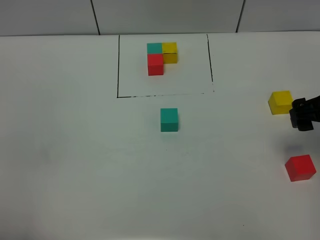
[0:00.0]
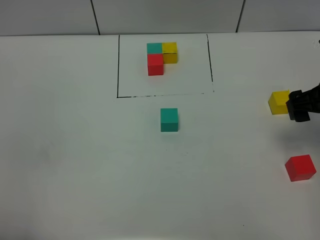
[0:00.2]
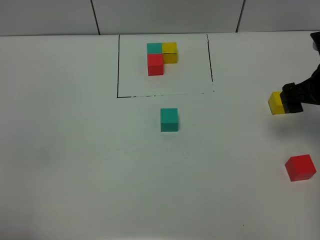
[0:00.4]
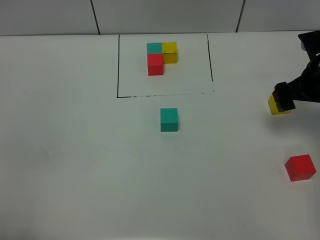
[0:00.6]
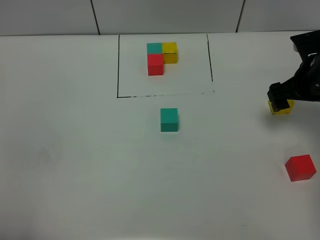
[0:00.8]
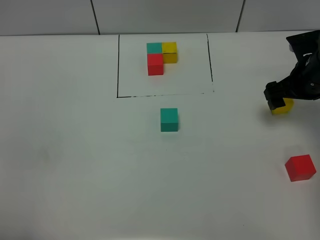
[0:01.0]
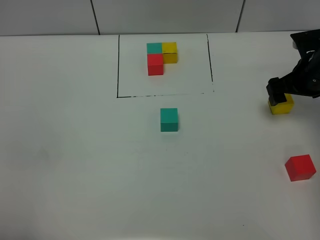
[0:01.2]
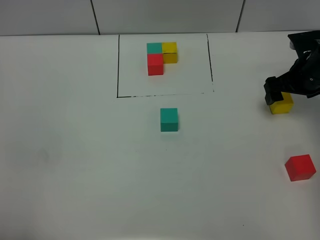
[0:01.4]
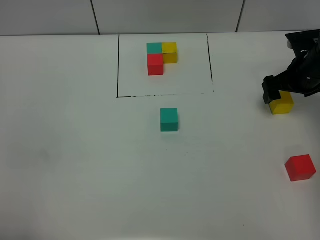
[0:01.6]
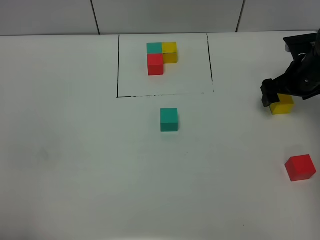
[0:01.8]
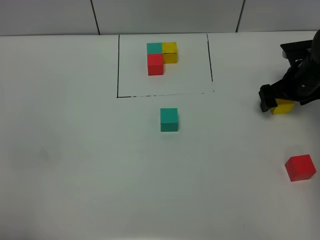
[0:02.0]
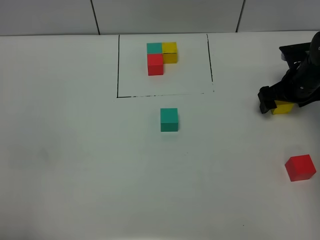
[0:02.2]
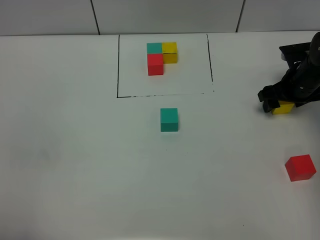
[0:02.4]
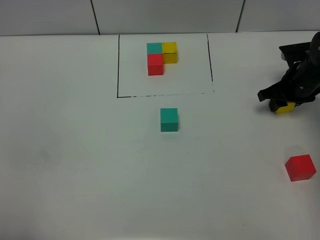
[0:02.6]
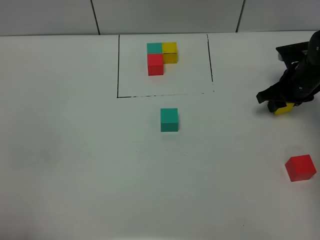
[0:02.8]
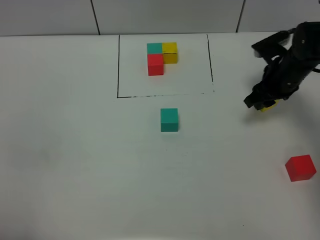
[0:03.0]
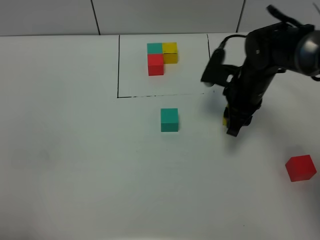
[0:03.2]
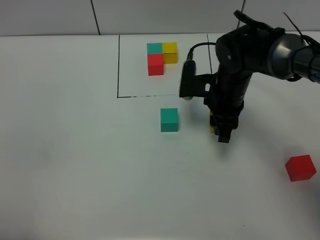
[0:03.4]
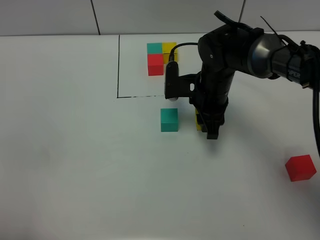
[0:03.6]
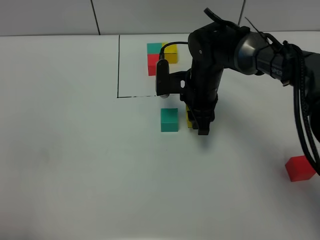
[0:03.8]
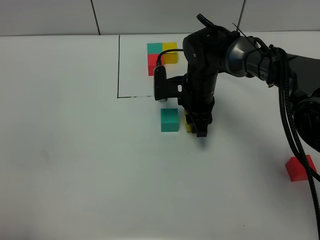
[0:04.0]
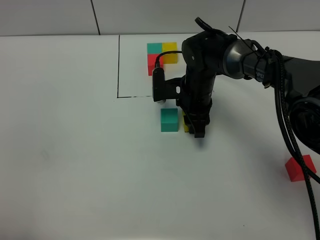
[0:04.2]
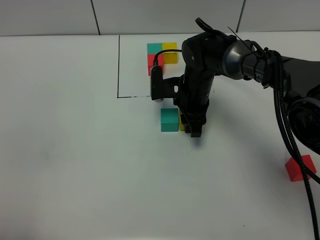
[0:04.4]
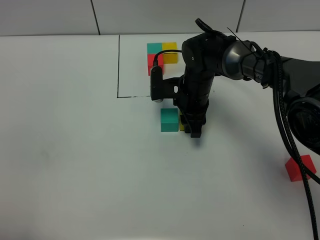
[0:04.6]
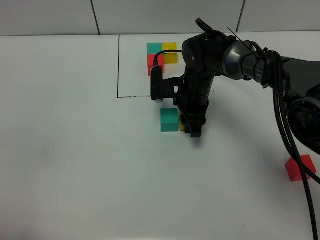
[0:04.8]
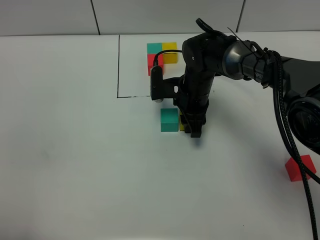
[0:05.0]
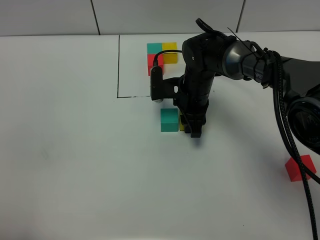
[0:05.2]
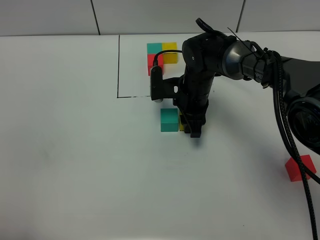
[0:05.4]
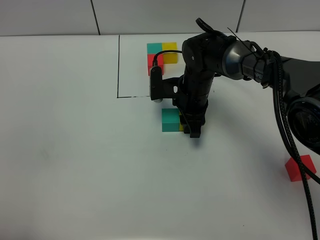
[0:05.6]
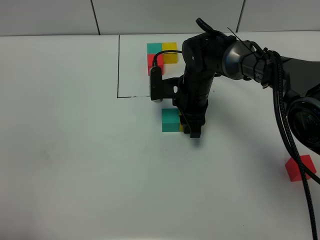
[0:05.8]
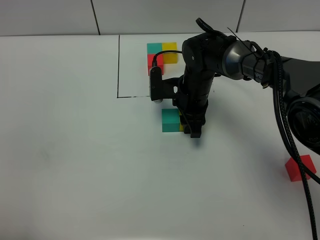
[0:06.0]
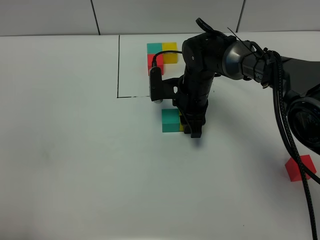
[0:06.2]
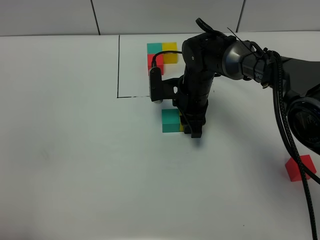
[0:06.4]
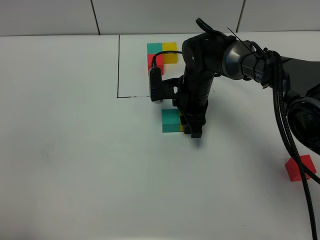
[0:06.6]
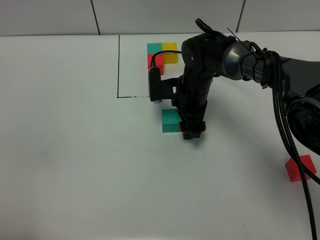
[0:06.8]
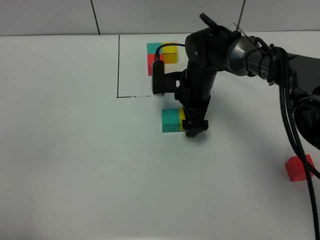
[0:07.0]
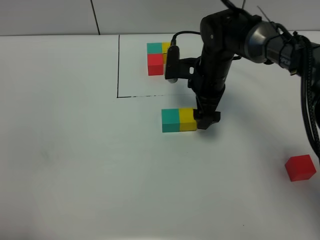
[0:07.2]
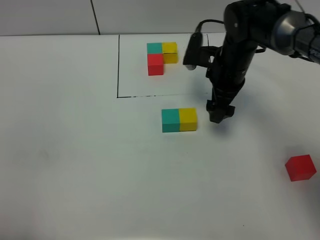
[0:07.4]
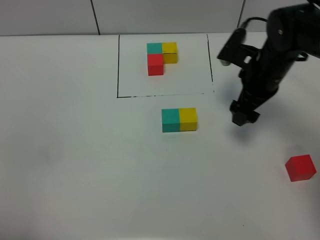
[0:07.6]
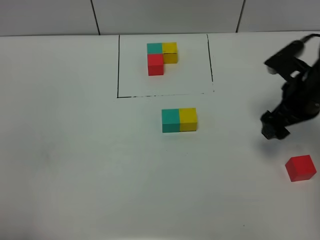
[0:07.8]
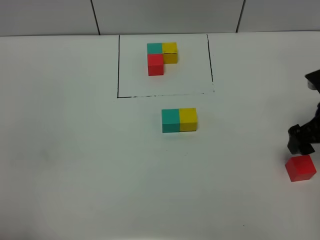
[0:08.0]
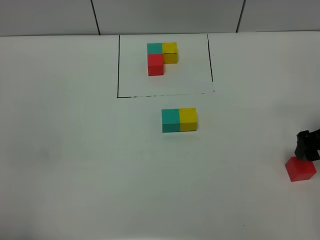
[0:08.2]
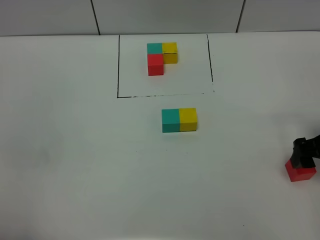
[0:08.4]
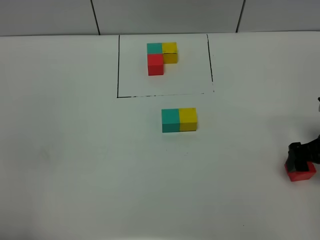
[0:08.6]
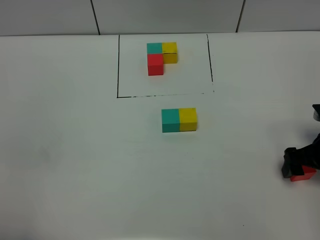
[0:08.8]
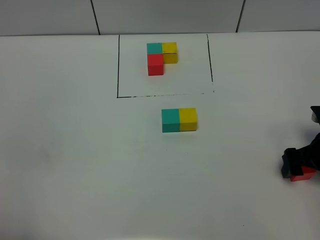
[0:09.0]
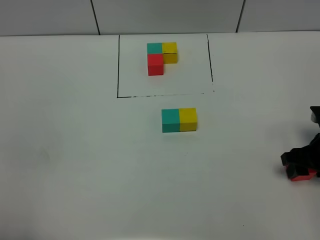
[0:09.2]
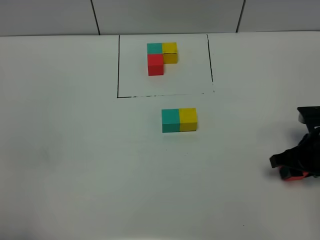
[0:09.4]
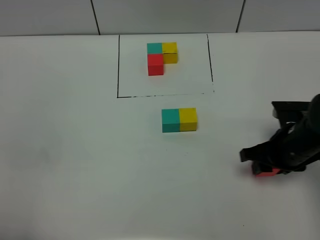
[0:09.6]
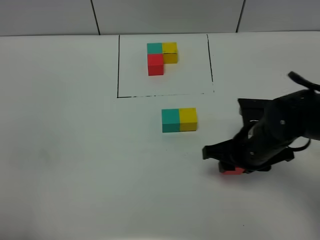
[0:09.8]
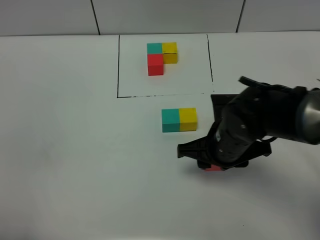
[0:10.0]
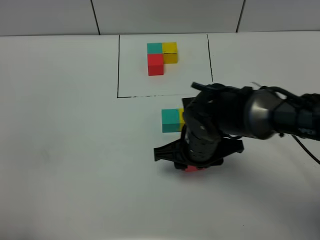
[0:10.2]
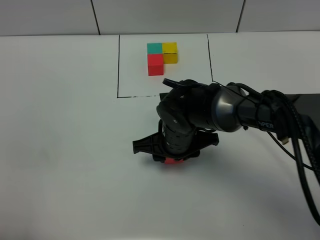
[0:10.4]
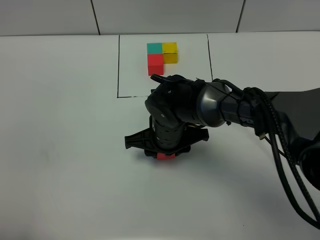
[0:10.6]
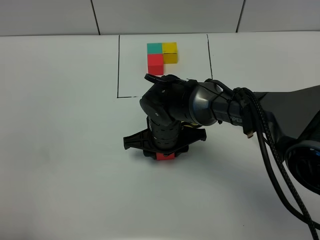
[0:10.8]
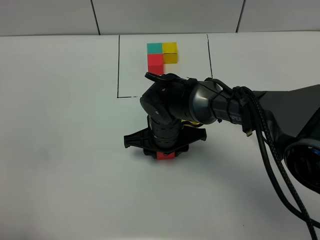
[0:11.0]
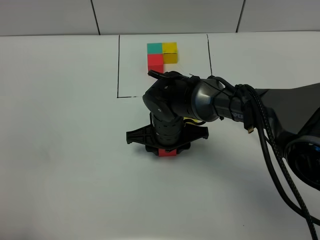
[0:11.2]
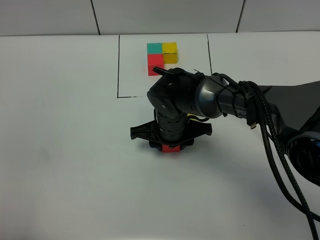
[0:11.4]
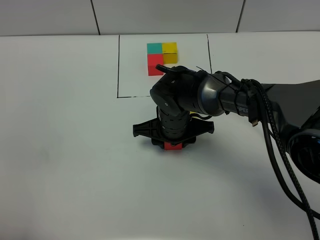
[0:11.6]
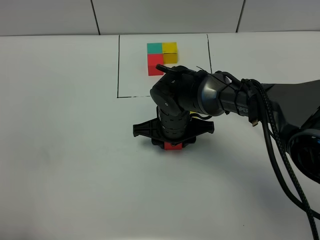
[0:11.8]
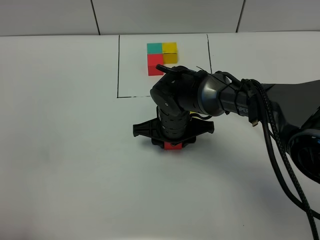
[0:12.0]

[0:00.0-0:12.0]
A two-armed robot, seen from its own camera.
Task of the whole recording: According to the building block template in front, assemble the scattered blocks together.
Step, 0:00.0 to 0:06.8: Put the yellow build block on the right of the green build block.
0:00.0 to 0:01.6: The right gripper travels forward and downward by about 15 cm.
0:01.6 to 0:03.0: The right gripper heads to the left, covering some 5 cm, and closes.
0:03.0 to 0:04.4: The right gripper travels to the left by about 15 cm.
0:04.4 to 0:06.0: Both grippers stay put.
0:06.0 to 0:07.6: The right gripper heads to the right and upward, covering some 15 cm, and opens its fingers.
0:07.6 to 0:09.0: The right gripper shifts approximately 15 cm backward, to the right and downward.
0:09.0 to 0:10.4: The right gripper shifts approximately 30 cm to the left, and closes its fingers.
0:10.4 to 0:12.0: The grippers stay close to where they were, moving slightly.

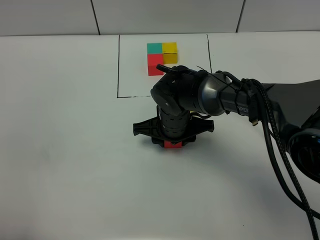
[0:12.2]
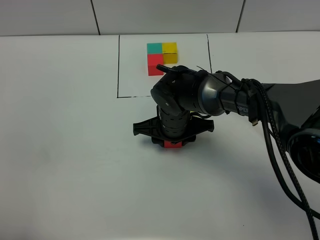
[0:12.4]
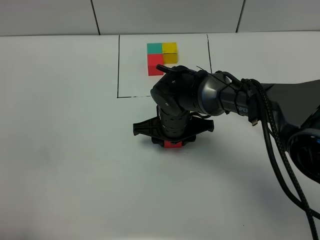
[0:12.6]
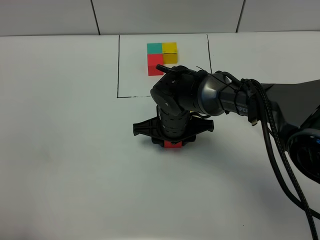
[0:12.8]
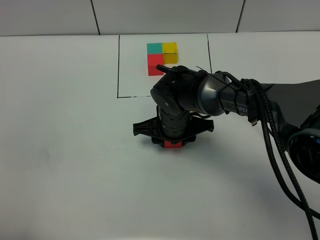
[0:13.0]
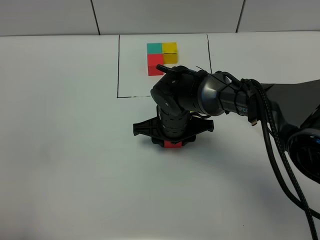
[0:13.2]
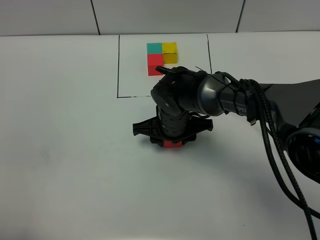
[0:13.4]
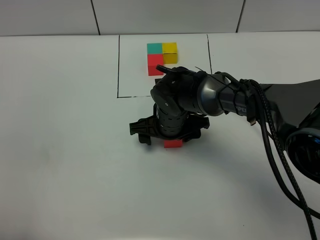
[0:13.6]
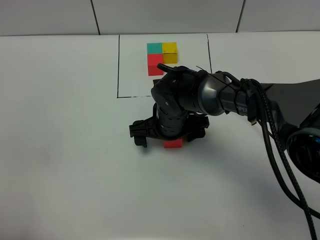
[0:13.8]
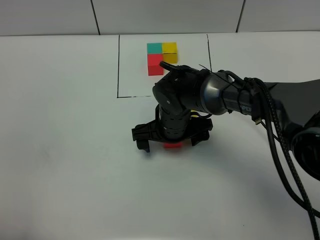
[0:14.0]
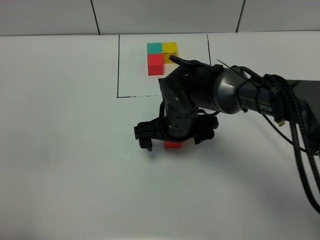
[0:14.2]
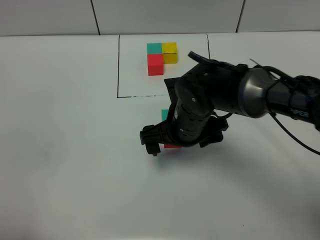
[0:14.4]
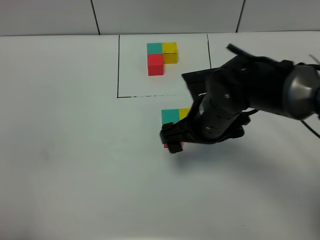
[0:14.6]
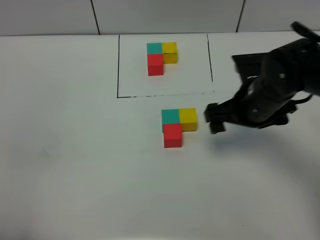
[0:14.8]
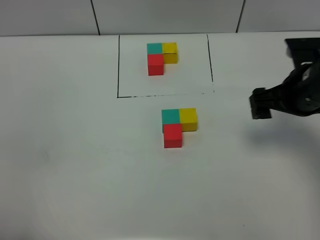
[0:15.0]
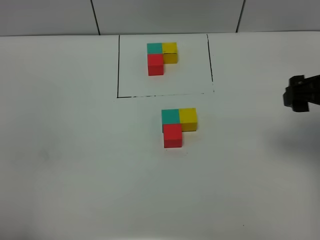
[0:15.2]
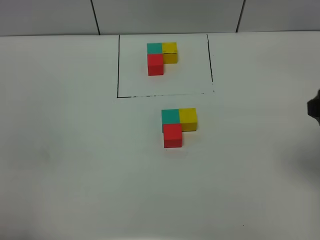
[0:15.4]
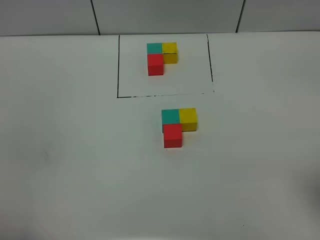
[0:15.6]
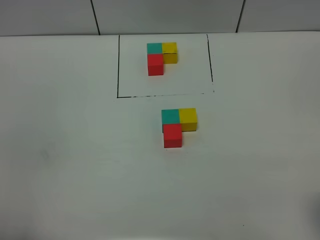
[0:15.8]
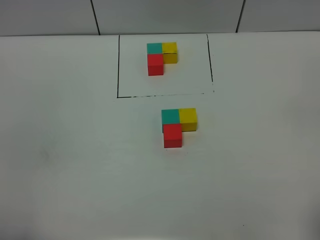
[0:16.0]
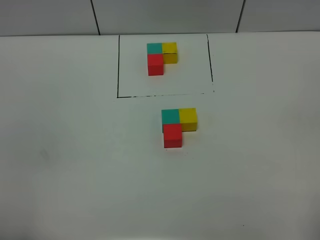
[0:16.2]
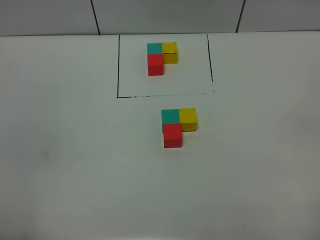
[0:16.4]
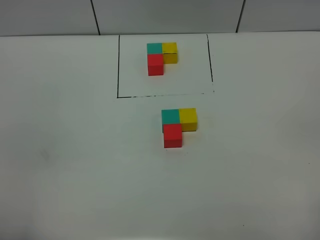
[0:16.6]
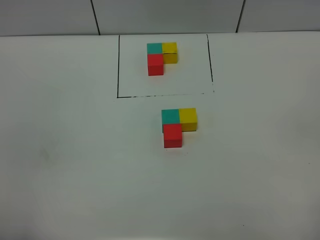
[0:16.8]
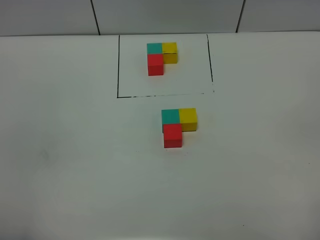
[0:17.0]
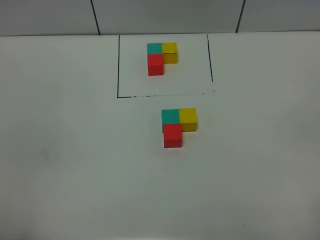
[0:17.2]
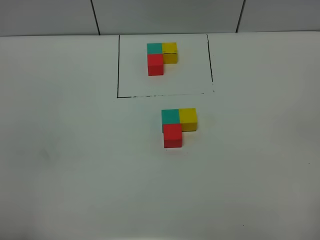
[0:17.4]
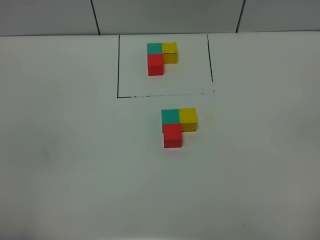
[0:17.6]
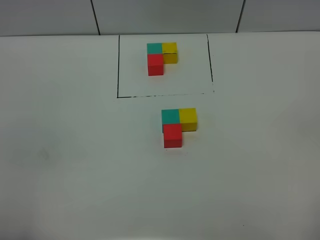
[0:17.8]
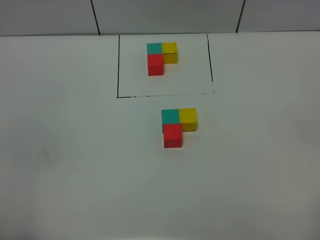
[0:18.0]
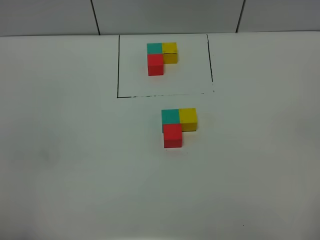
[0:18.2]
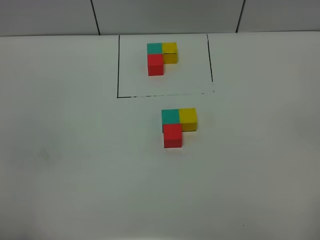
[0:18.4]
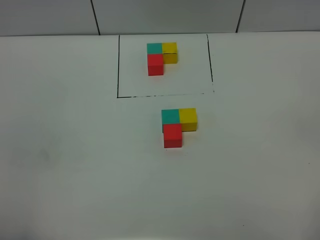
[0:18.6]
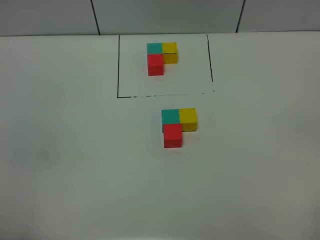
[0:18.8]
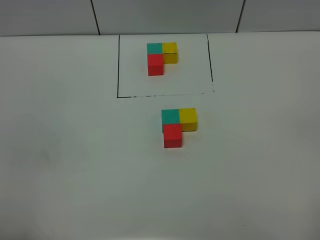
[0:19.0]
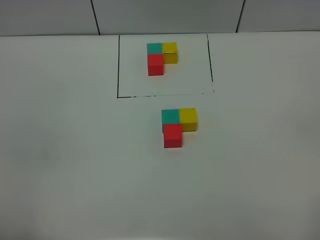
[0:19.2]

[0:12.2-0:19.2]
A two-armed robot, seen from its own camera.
Task of the whole recording: According to the building block template in front, assemble the scattered blocks together.
0:12.2 to 0:13.6: The right gripper opens its fingers.
0:13.6 to 0:15.0: The right gripper goes about 25 cm to the right and upward.
0:15.0 to 0:16.4: The right gripper goes about 30 cm backward.
0:16.4 to 0:19.2: Both grippers stay about where they are.
